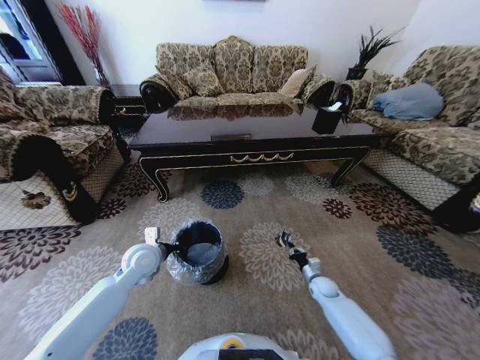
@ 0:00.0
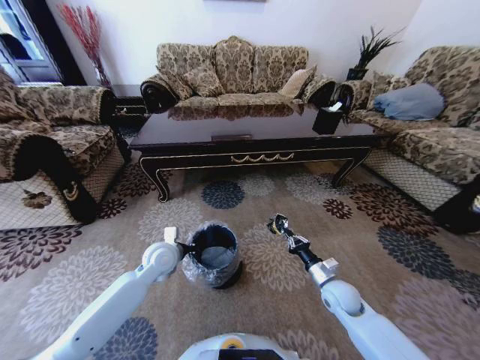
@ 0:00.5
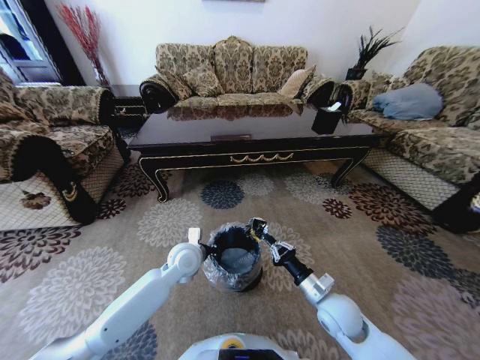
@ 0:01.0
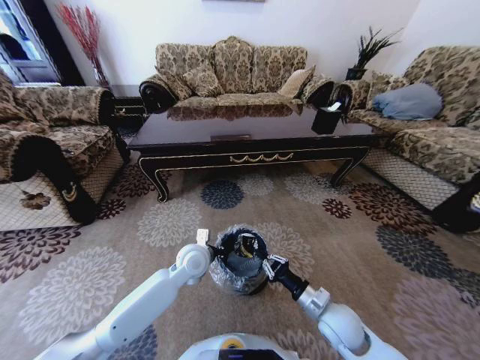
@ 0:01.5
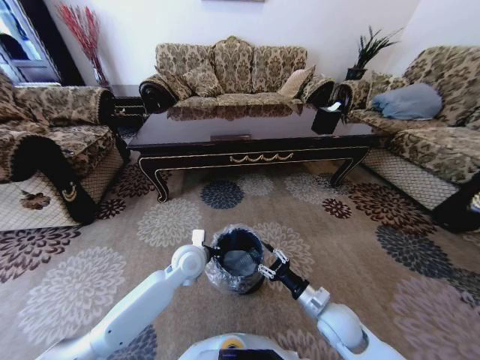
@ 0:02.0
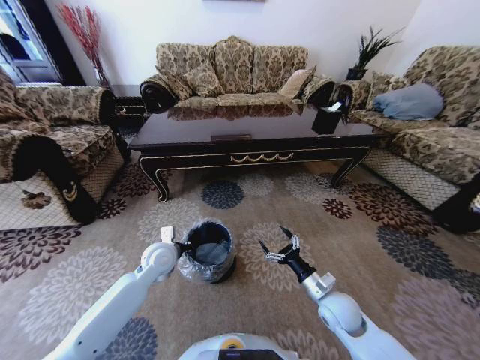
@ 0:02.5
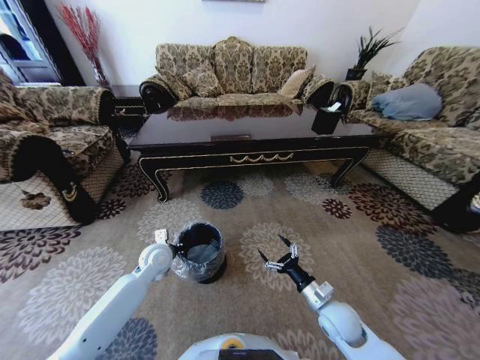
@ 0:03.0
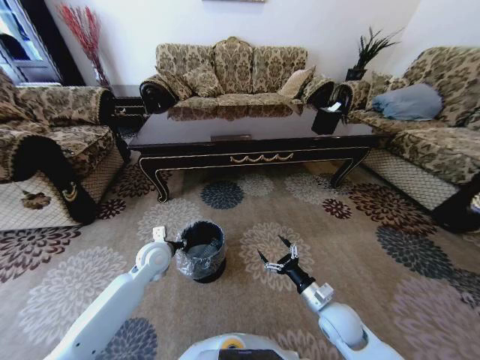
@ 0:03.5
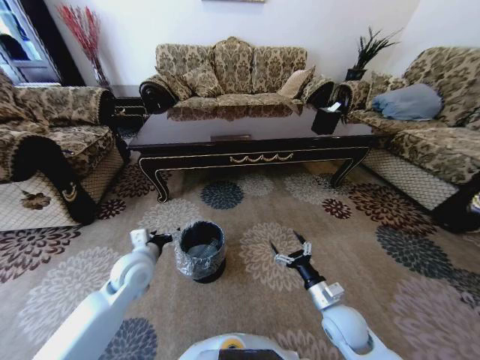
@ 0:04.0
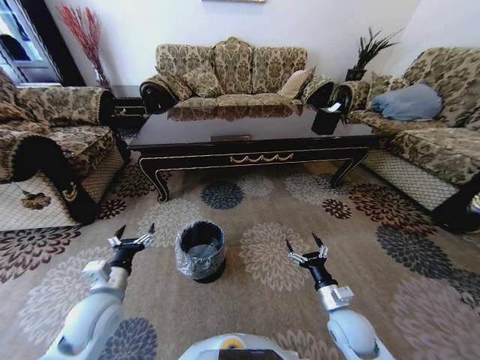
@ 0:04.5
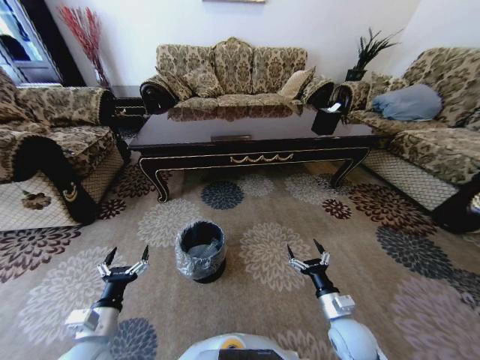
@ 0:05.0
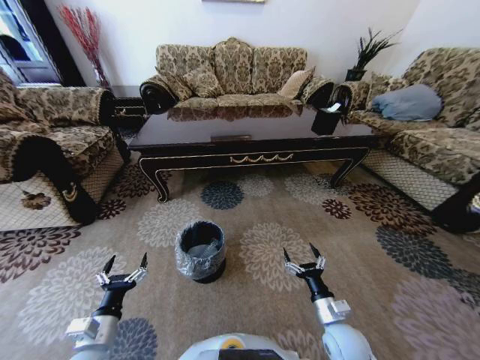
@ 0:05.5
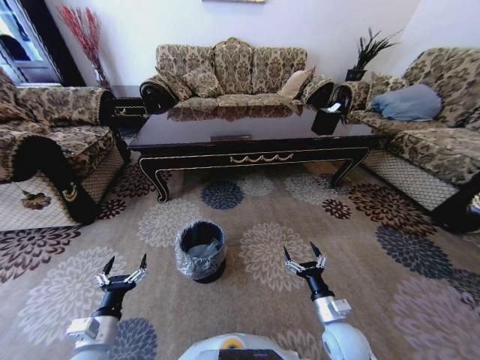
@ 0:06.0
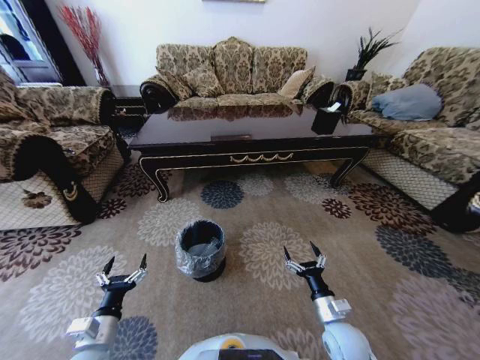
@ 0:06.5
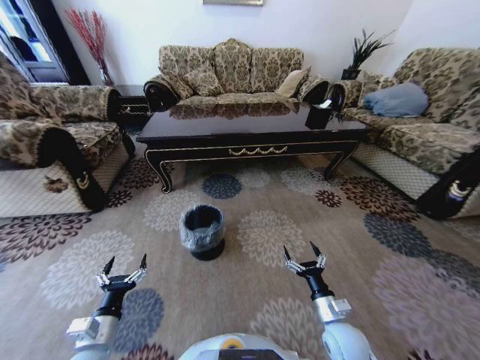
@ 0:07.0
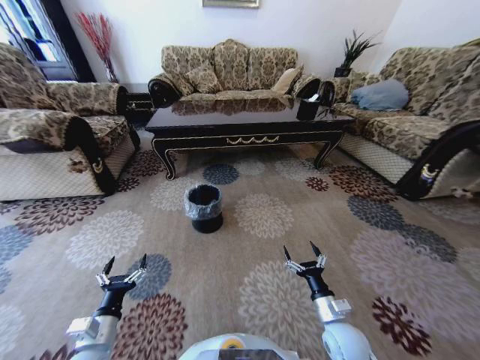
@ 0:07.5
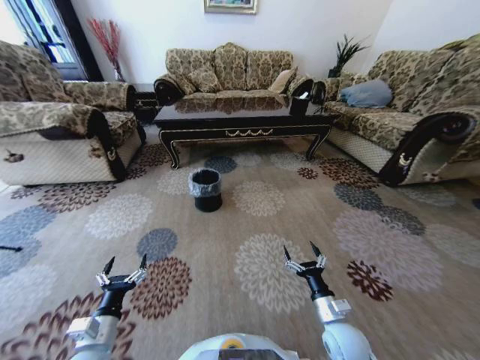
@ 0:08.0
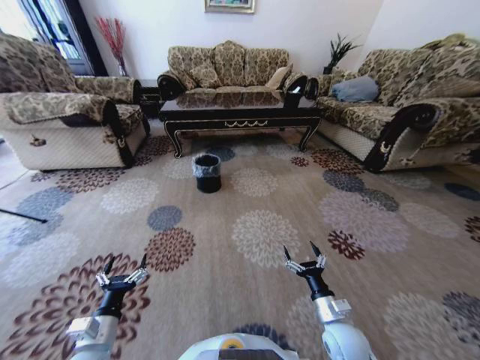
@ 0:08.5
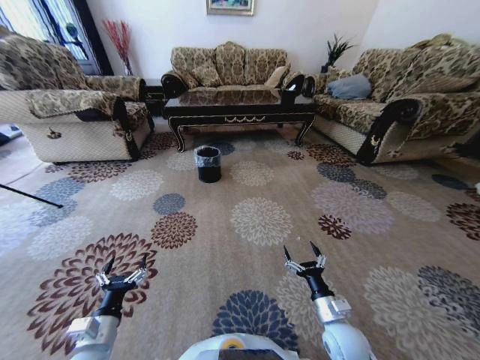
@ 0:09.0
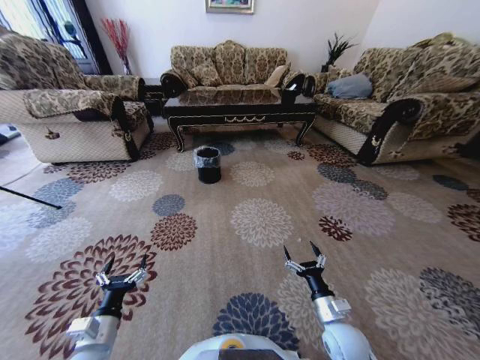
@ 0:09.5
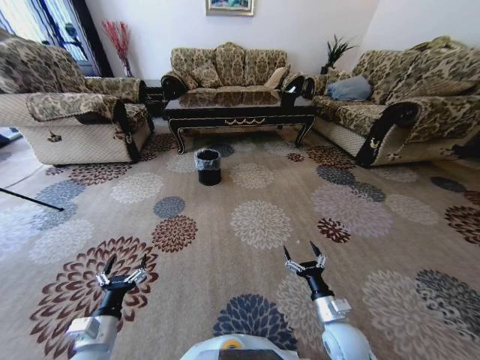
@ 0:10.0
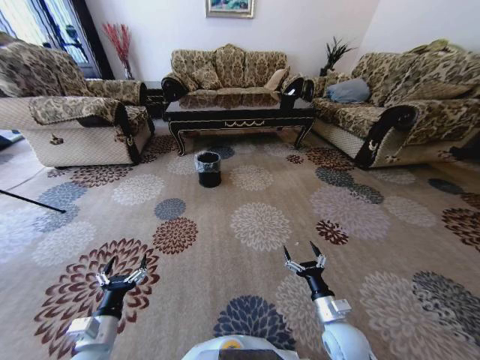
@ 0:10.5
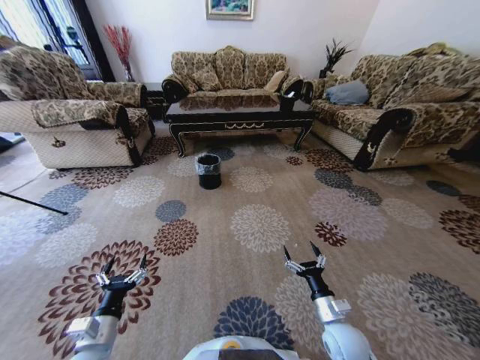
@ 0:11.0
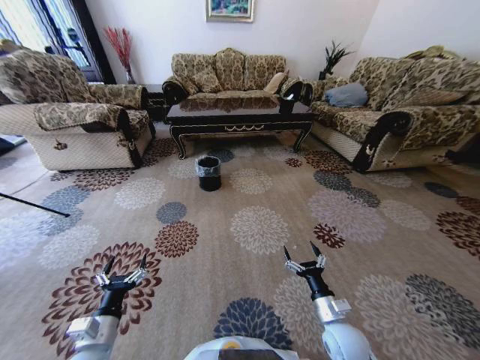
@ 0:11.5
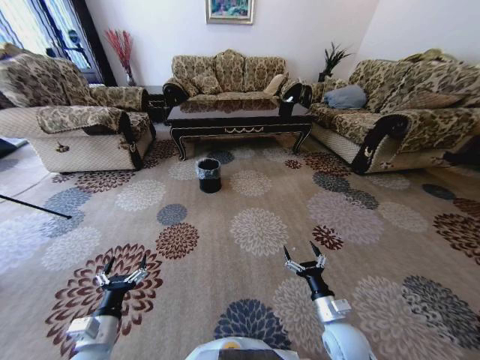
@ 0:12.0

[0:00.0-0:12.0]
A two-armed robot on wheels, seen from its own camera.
Task of the whole recording: Move to the front of the table and pick up the trash from the floor, then place it into the trash bin.
0:00.0 to 0:02.0: The left gripper travels to the right by about 15 cm. The right gripper heads upward, backward and to the left, covering about 25 cm, and opens.
0:02.0 to 0:04.0: The left gripper heads to the left, covering some 15 cm, and opens its fingers. The right gripper opens.
0:04.0 to 0:06.0: The left gripper moves backward and downward, some 20 cm.
